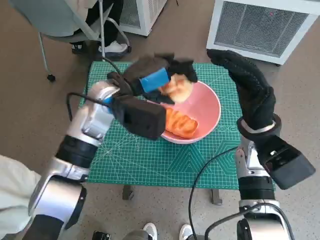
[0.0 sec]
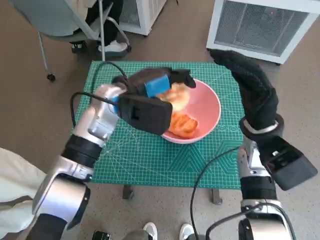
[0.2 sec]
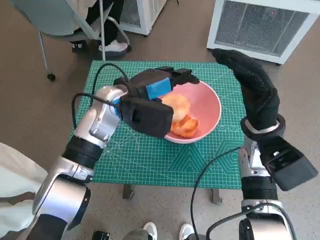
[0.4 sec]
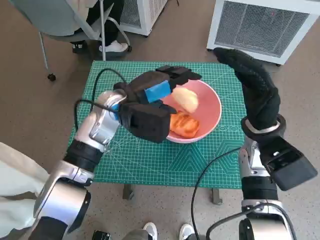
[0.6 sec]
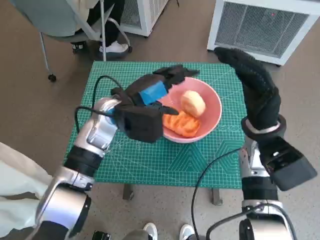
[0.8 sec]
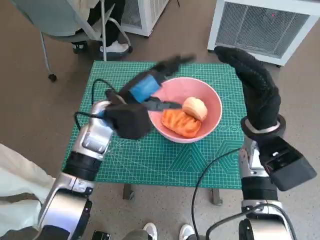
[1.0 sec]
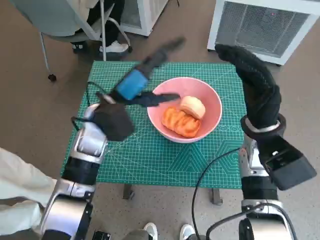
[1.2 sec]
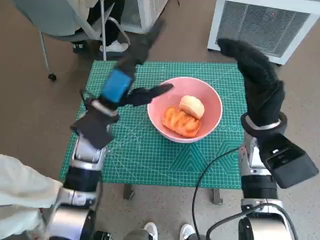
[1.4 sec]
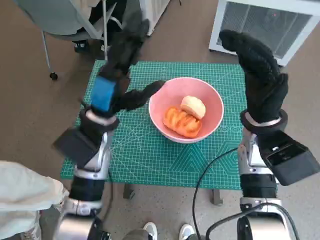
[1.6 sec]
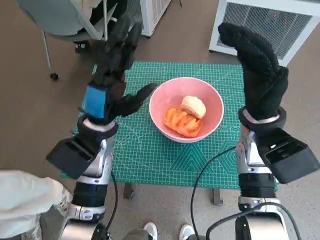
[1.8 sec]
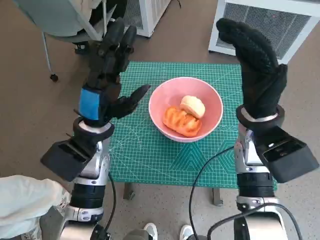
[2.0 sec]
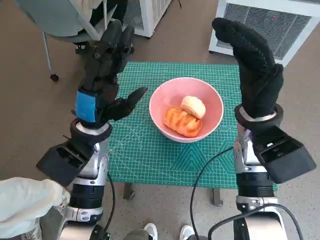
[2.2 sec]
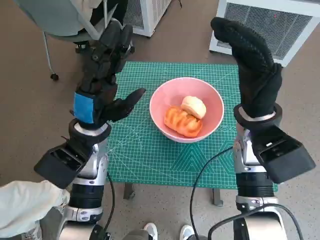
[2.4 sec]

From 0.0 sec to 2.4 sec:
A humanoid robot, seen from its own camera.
Task of the whole recording: Push the bowl to the center of the table and put the bread into the bowl.
From 1.2 sec to 2.4 sec: The left hand shifts by about 5 cm.

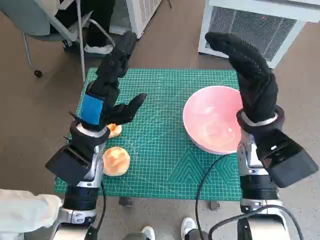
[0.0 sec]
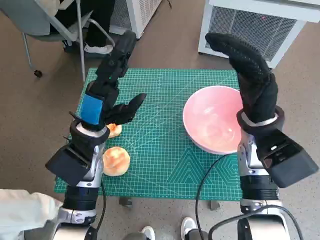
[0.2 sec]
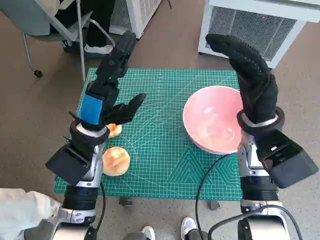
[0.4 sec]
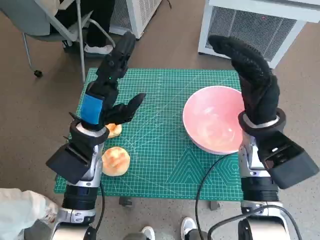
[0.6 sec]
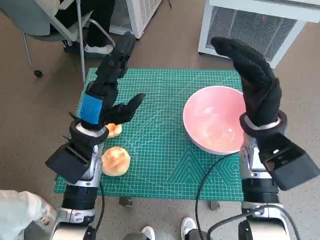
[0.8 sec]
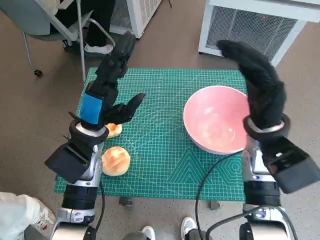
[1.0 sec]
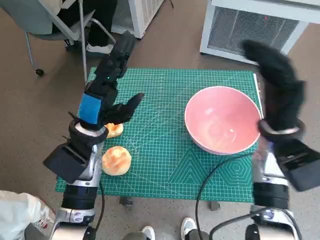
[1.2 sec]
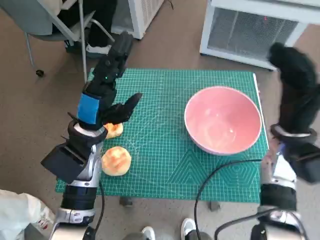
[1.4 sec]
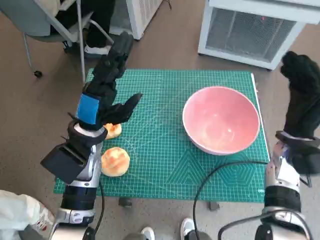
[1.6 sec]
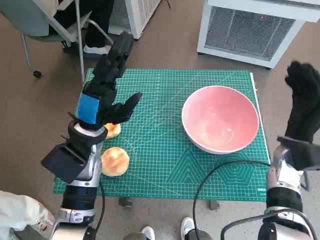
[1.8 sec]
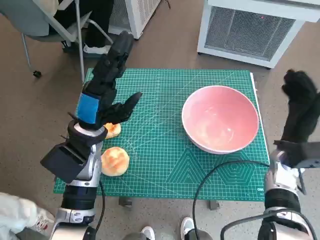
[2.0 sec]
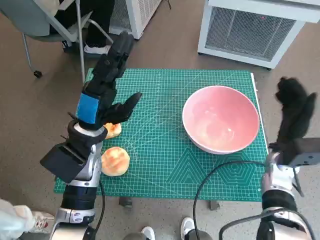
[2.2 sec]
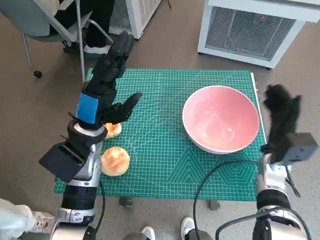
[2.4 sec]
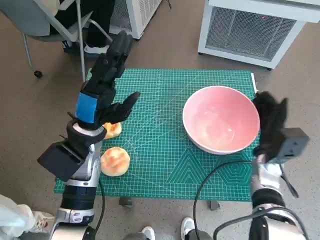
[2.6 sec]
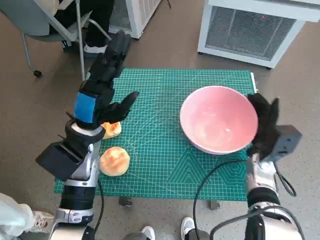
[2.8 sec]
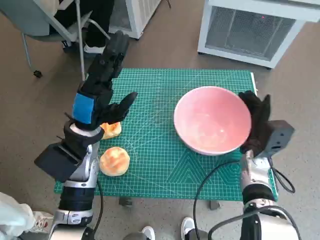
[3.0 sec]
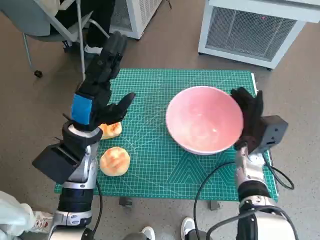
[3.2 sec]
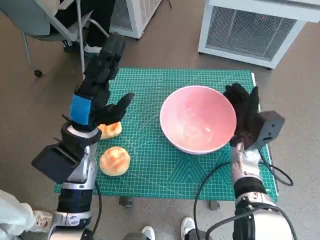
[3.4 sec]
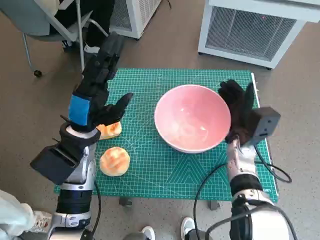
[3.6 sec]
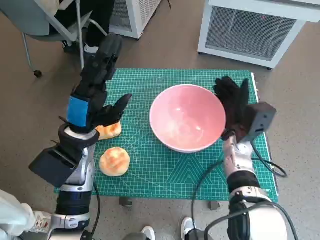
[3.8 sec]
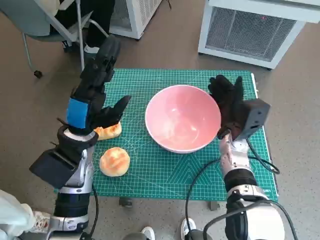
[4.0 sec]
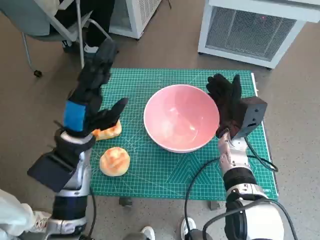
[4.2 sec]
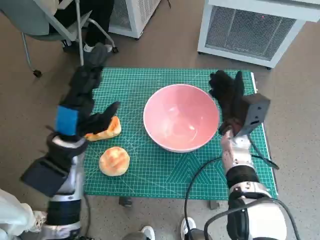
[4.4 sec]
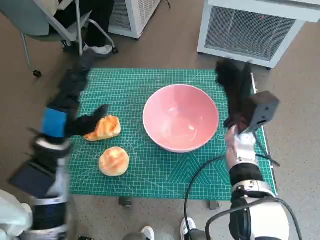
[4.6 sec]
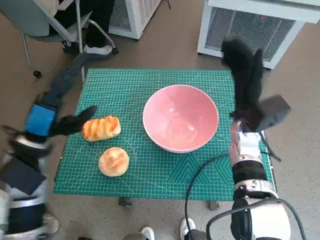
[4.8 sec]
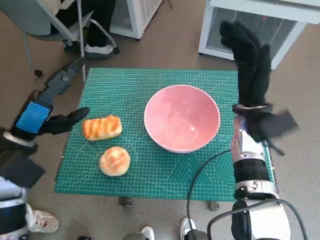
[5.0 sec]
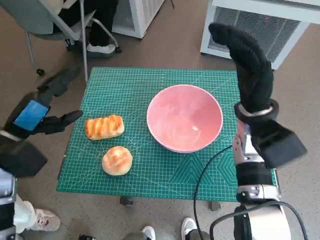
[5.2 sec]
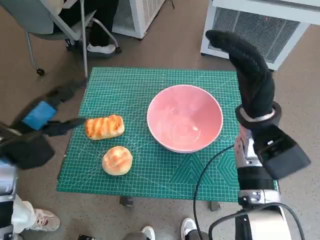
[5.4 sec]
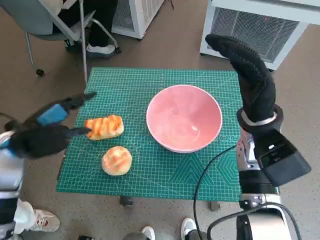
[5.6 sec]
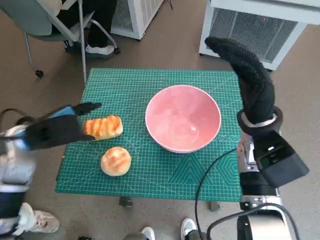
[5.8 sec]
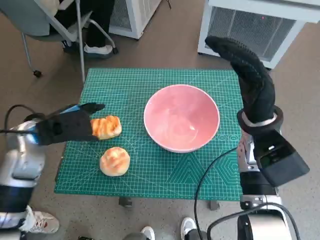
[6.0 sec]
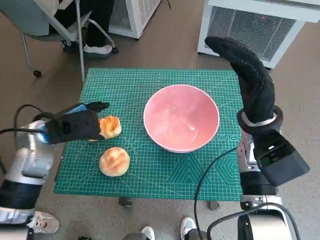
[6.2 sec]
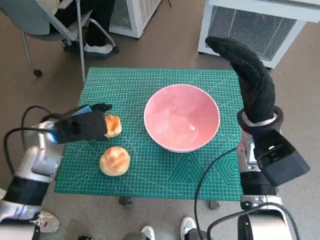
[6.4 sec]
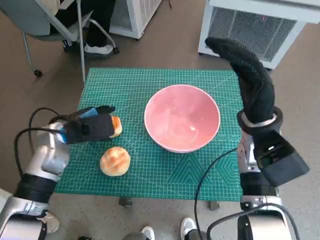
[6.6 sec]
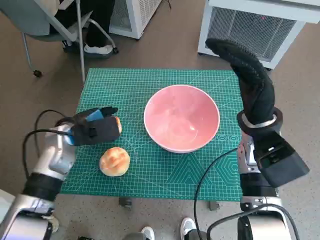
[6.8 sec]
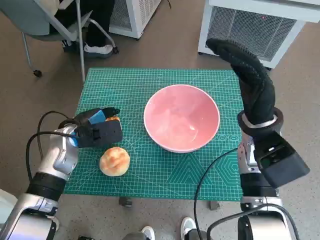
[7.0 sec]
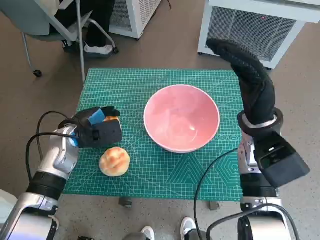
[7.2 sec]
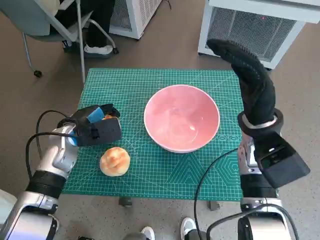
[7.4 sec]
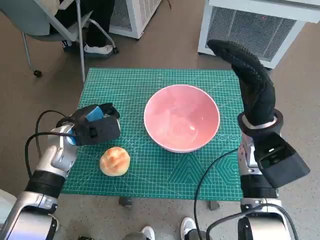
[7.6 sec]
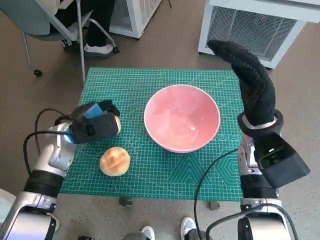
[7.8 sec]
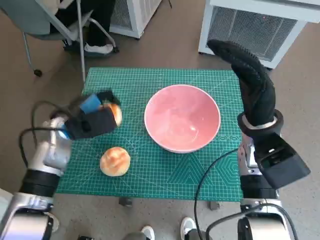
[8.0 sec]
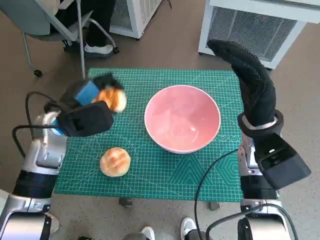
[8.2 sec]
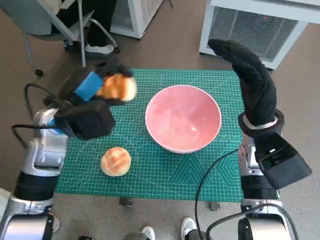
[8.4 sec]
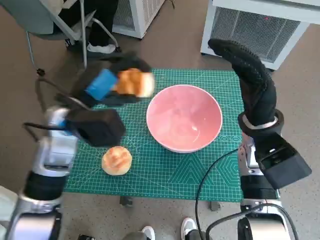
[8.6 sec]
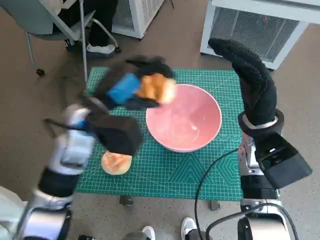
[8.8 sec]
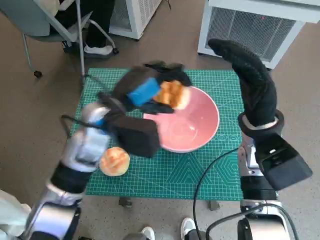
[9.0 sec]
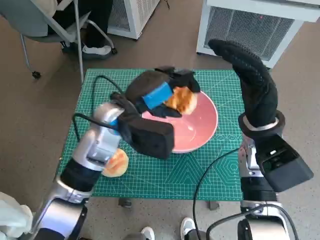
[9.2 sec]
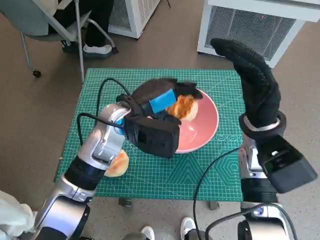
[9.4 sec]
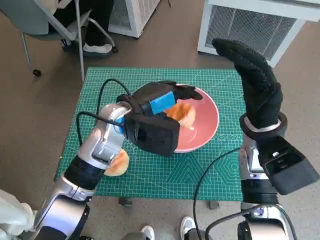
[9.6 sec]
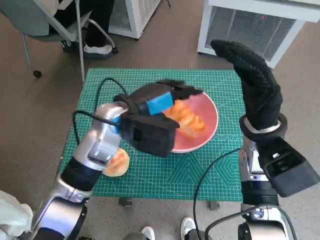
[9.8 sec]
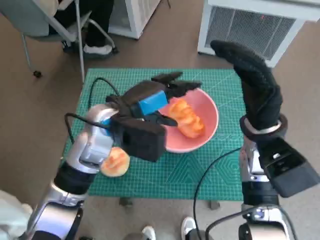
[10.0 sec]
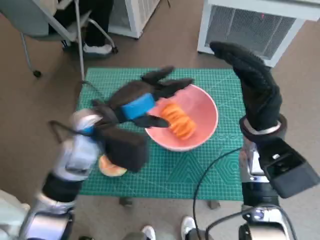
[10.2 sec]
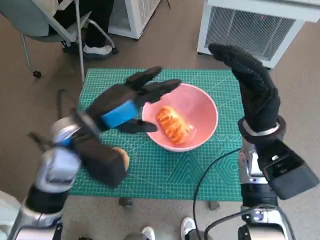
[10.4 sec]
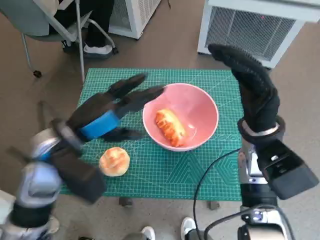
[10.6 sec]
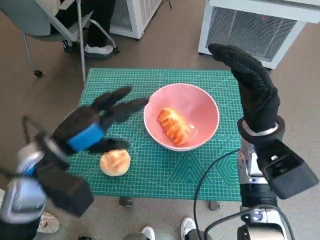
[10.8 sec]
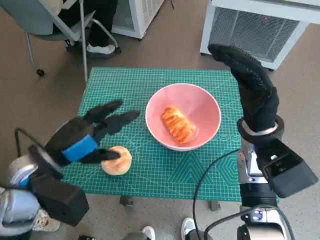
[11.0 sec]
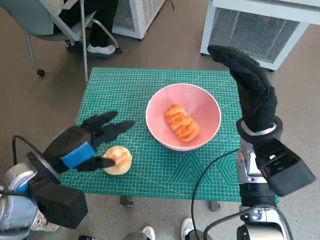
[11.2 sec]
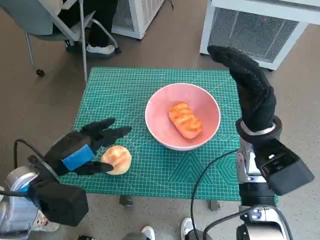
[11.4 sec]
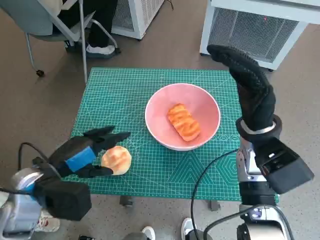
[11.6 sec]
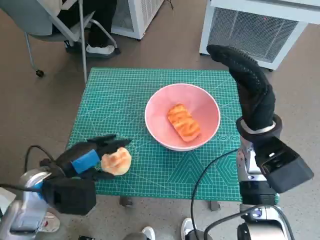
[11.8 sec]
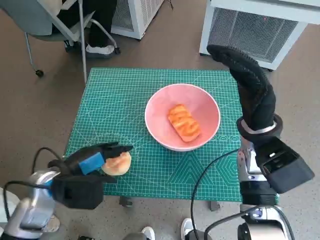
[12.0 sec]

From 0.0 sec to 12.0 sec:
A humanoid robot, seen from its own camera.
Task of the whole recording: Push the bowl to the center of the table and put the bread into the bowl.
Step, from 0.0 sec to 4.4 sec: Move the pink bowl to the center of table with right hand.
Step, from 4.6 sec to 7.6 sec: Grasp the long bread with left hand.
Step, from 7.8 sec to 10.0 sec: Place the long bread in pink bowl with left hand.
From 1.6 sec to 3.0 sec: The right hand travels downward by roughly 10 cm.
From 3.0 sec to 4.4 sec: The right hand goes roughly 5 cm to the left.
From 4.4 sec to 6.0 sec: The right hand is displaced upward by some 10 cm; the left hand shifts some 5 cm to the left.
From 6.0 sec to 7.6 sec: The left hand moves downward, roughly 5 cm.
From 7.6 sec to 9.0 sec: The left hand shifts roughly 15 cm to the right and upward.
From 10.4 sec to 12.0 sec: The left hand travels downward, to the left and backward by about 15 cm.

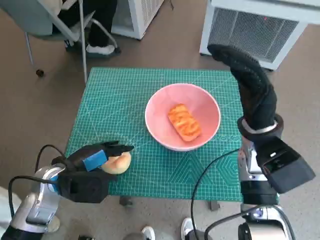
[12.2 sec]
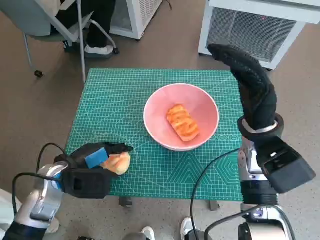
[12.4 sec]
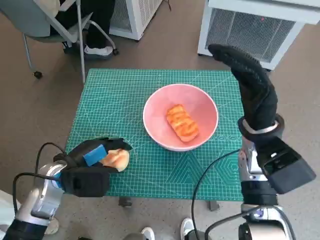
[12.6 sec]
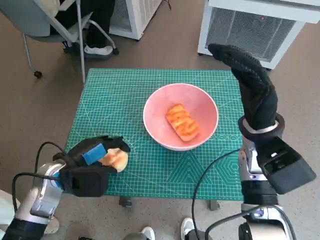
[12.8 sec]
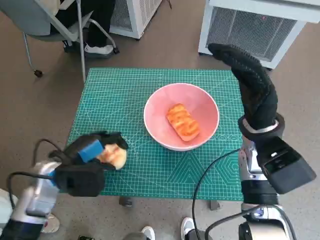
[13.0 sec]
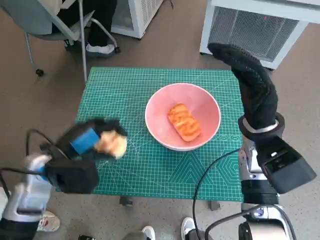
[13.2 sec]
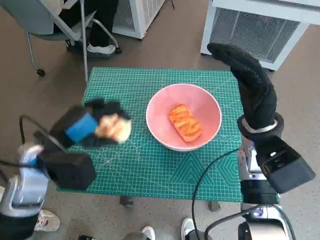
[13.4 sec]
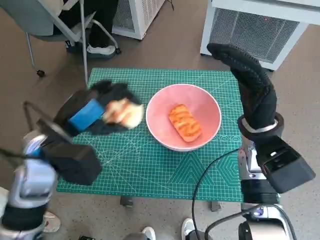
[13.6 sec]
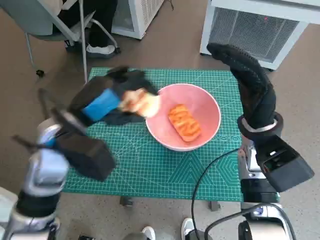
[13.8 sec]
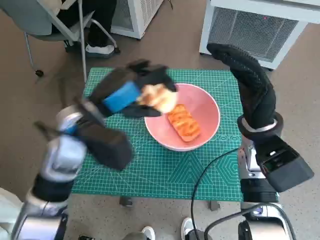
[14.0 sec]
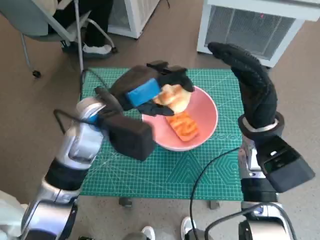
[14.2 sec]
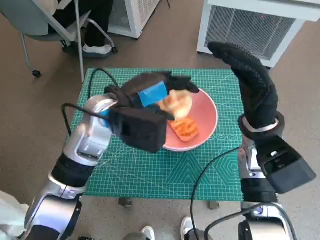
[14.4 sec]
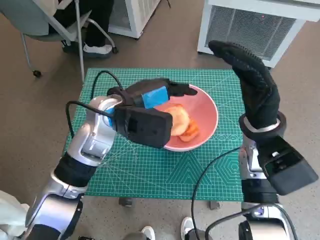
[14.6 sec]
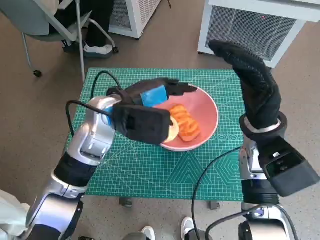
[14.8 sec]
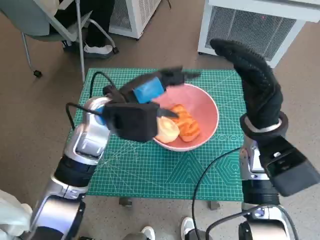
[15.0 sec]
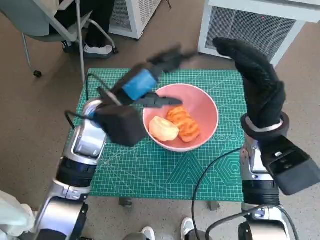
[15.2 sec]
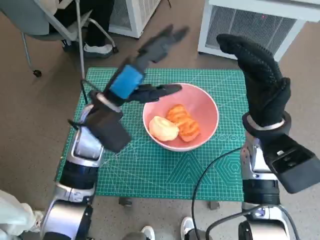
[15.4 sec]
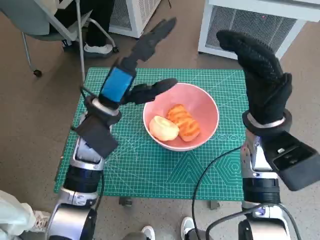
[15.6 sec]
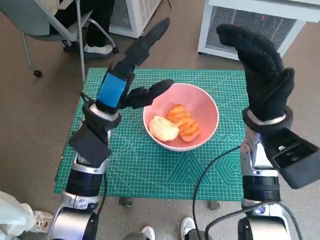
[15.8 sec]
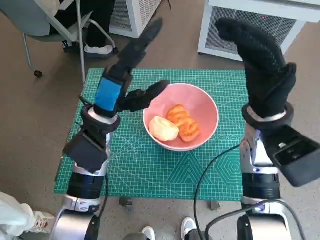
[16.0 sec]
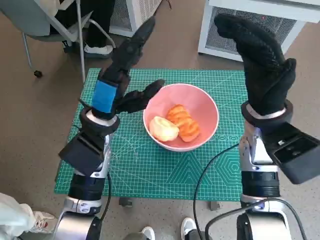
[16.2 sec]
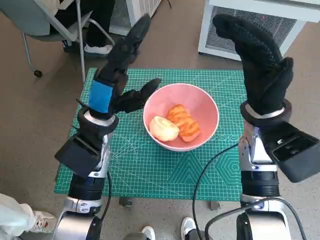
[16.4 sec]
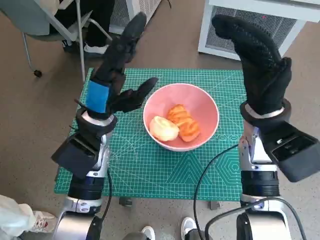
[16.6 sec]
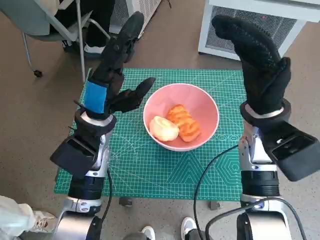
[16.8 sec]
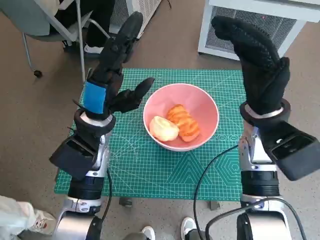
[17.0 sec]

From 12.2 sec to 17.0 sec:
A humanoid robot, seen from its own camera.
Task of the whole recording: Push the bowl to the center of the table and put the bread into the bowl.
Step, from 12.8 sec to 15.0 sec: Place the round bread in pink bowl with left hand.
From 12.2 sec to 13.8 sec: The left hand moves upward and to the right, about 10 cm.
From 13.8 sec to 15.4 sec: The left hand goes roughly 5 cm forward.
